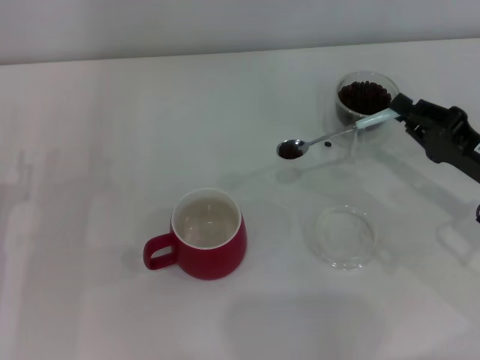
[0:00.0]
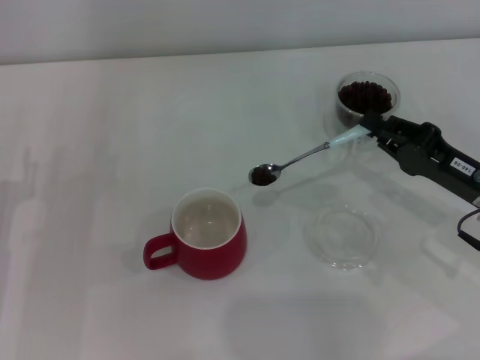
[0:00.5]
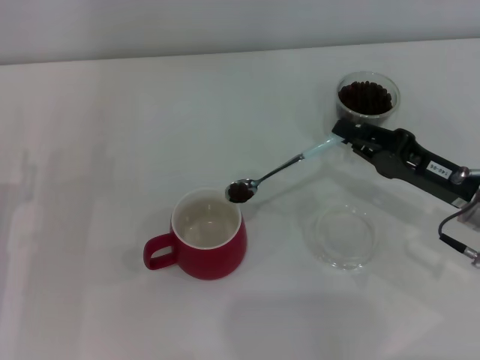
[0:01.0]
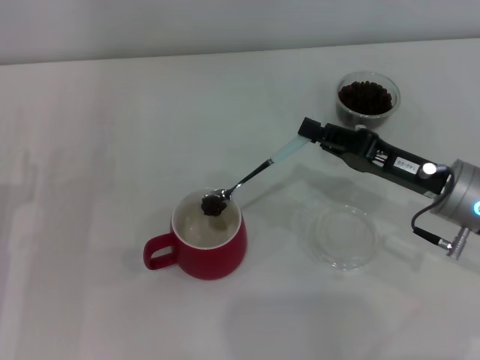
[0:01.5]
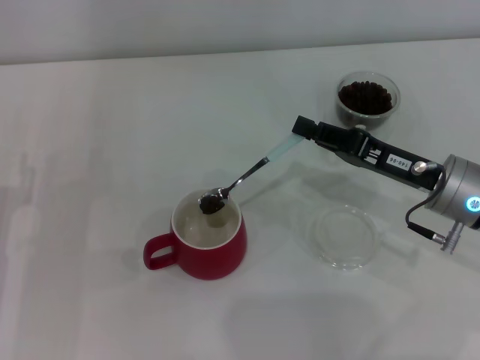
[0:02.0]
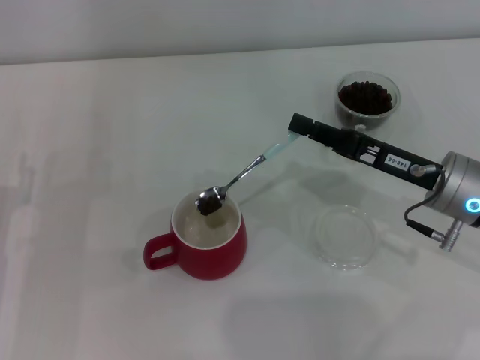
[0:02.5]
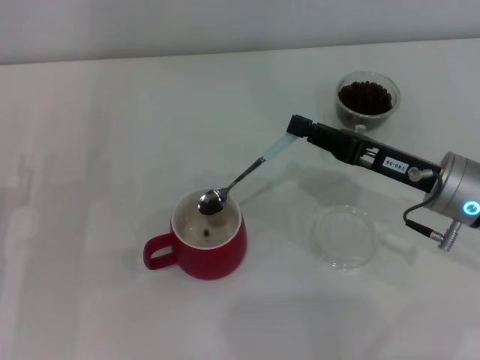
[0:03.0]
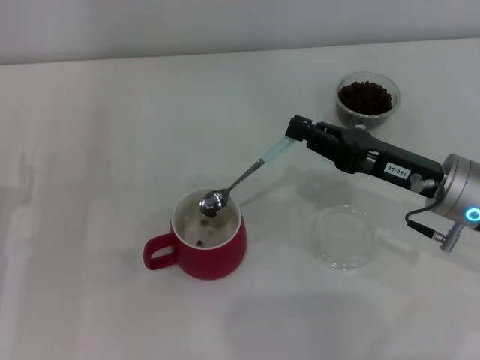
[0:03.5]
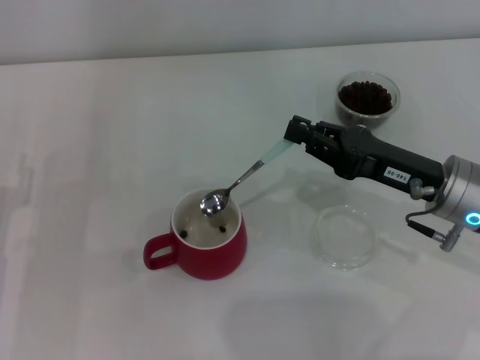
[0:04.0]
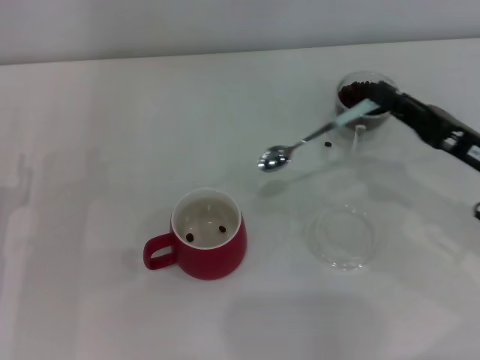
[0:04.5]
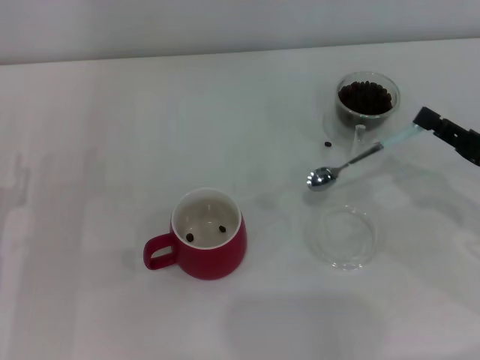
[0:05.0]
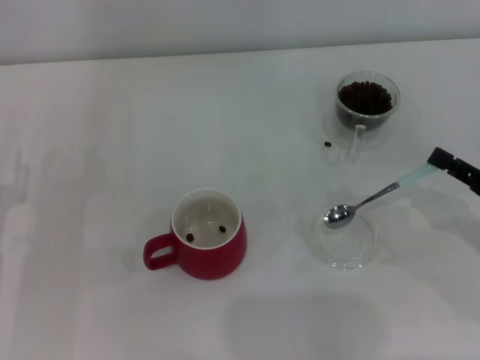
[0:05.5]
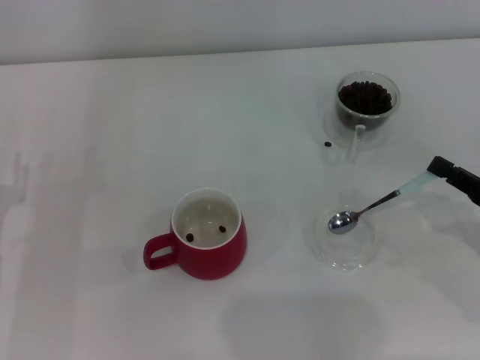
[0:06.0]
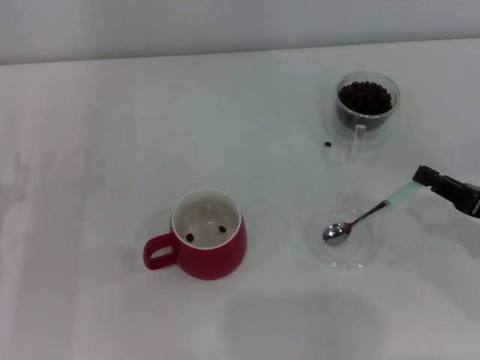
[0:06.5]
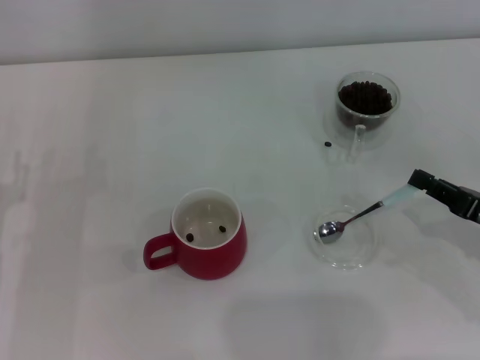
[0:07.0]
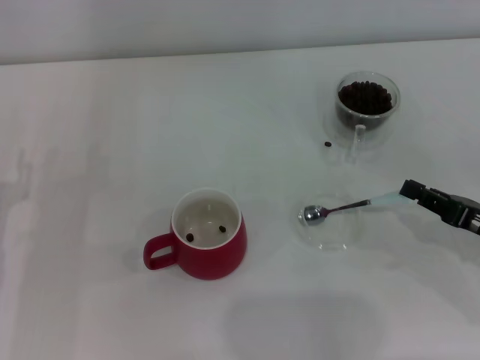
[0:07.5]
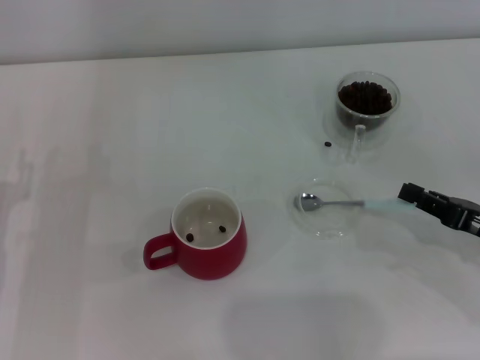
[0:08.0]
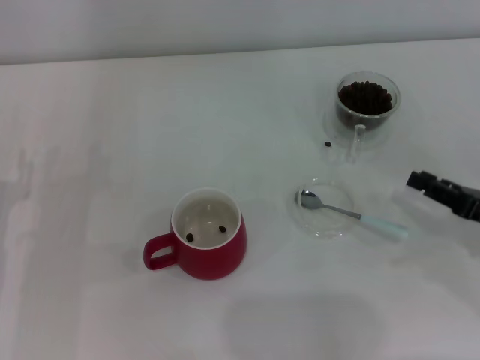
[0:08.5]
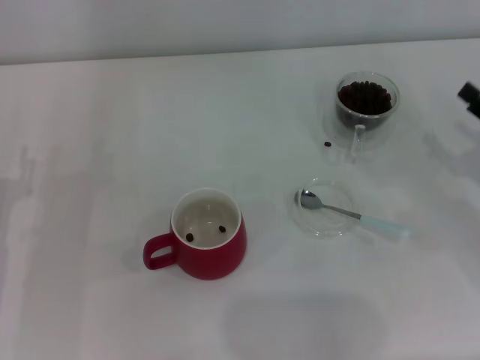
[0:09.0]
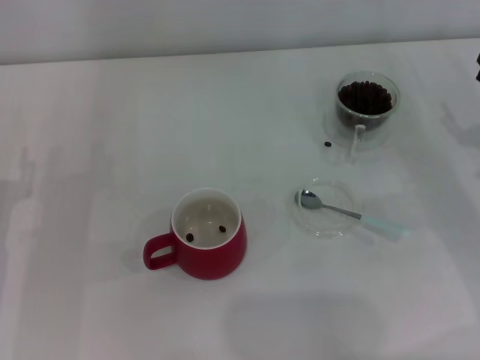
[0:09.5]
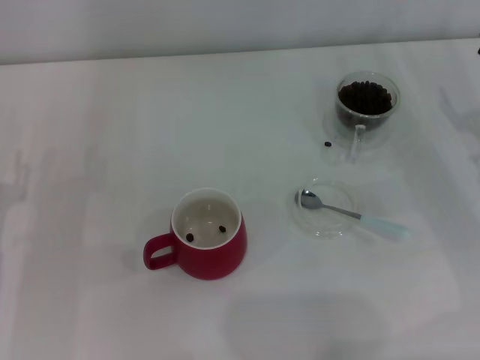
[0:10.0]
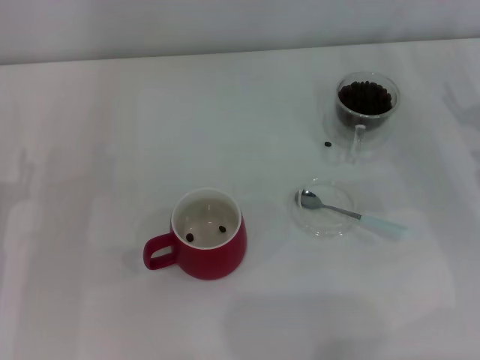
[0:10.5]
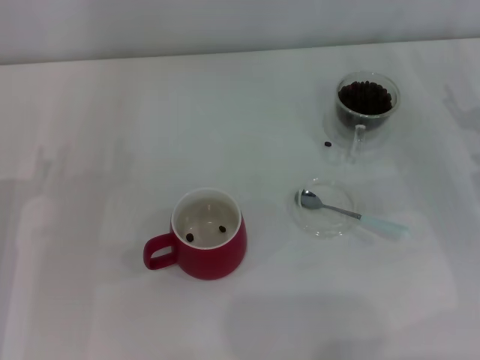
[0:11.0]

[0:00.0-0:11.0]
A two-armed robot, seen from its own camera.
Task of the whole recording: Use a blue spoon to take out the coffee beans from the glass and pour them into the red cup.
Step, 0:00.0 to 0:03.5: Scoop a spoonful of beans into the cup with the right gripper.
Step, 0:04.5 to 0:08.0: Place the spoon back in its original place with the right gripper.
0:00.0 to 0:02.0: The right gripper travels to the left by some 5 cm.
0:02.0 to 0:03.5: There are only small adjustments of the grippers.
0:03.5 to 0:05.5: The right gripper goes approximately 15 cm to the right and backward.
0:05.5 to 0:07.5: The grippers stay close to where they were, moving slightly.
0:07.5 to 0:09.0: The right gripper moves about 5 cm, and opens up.

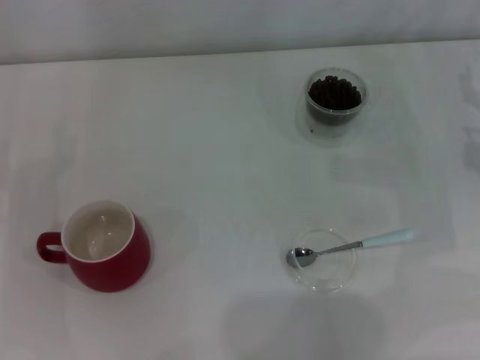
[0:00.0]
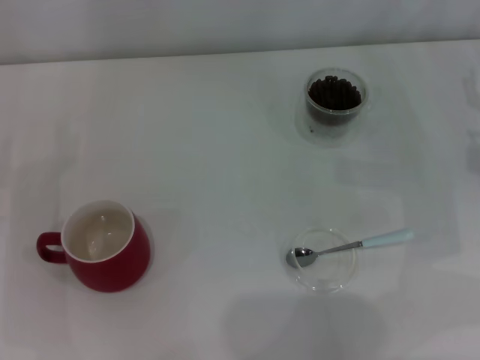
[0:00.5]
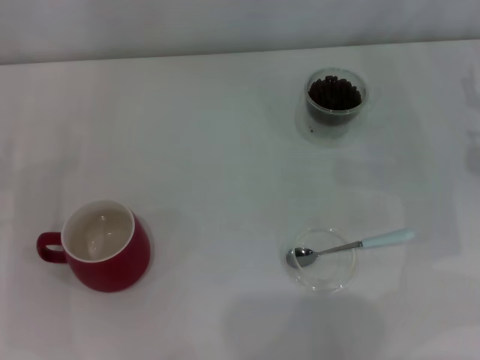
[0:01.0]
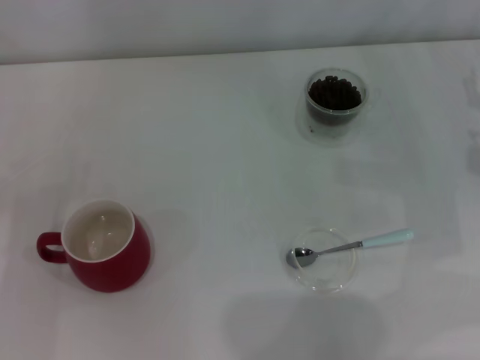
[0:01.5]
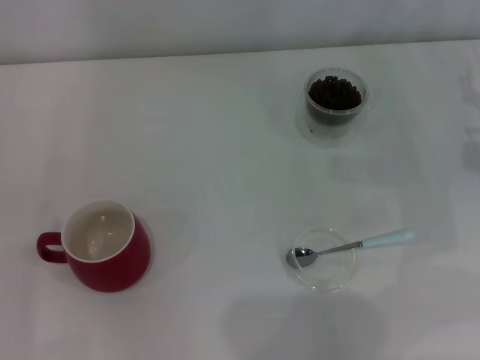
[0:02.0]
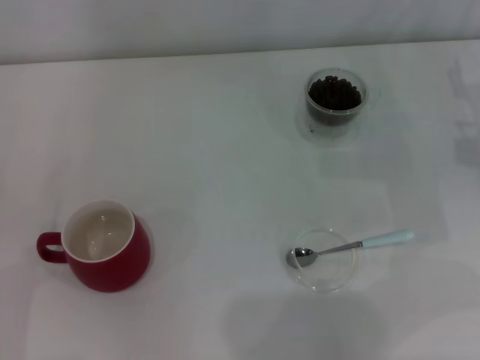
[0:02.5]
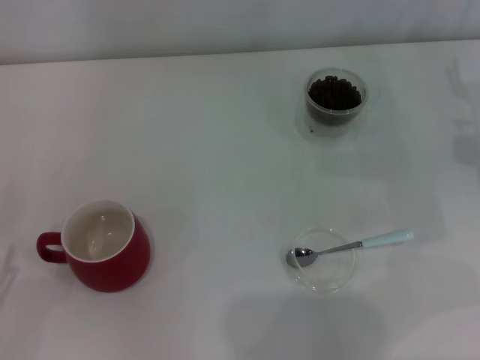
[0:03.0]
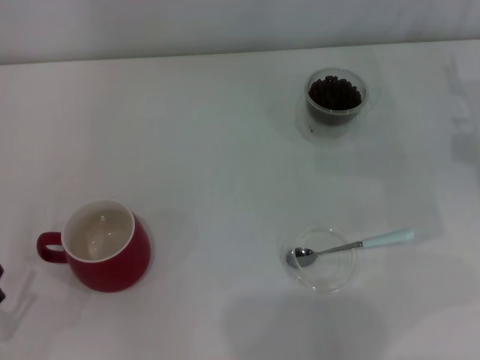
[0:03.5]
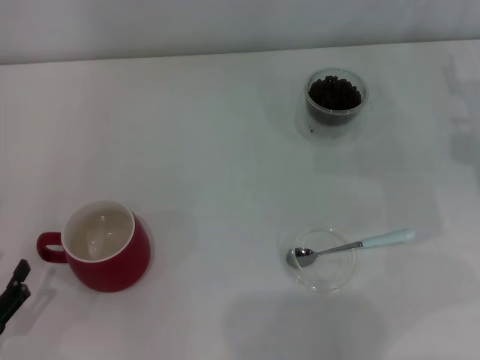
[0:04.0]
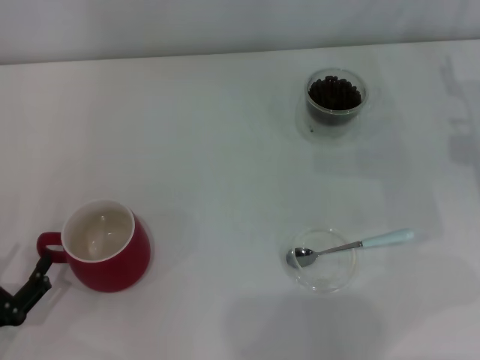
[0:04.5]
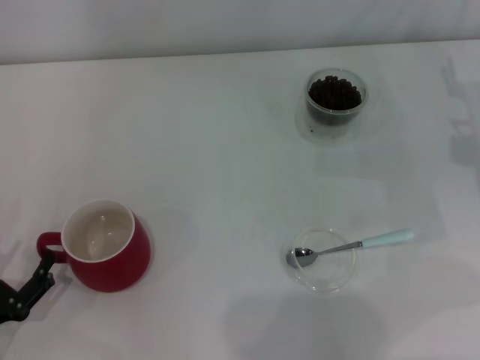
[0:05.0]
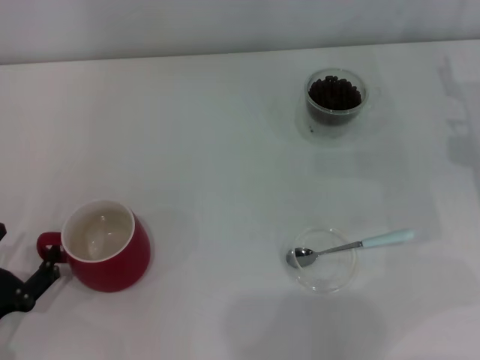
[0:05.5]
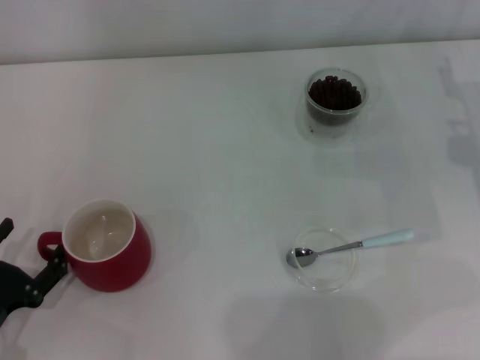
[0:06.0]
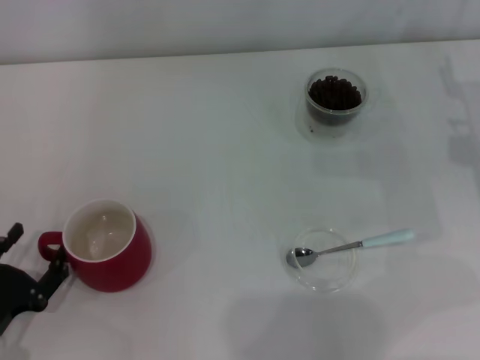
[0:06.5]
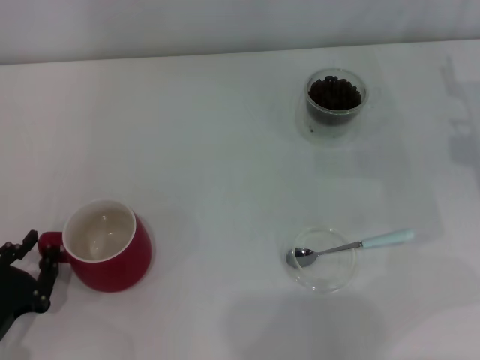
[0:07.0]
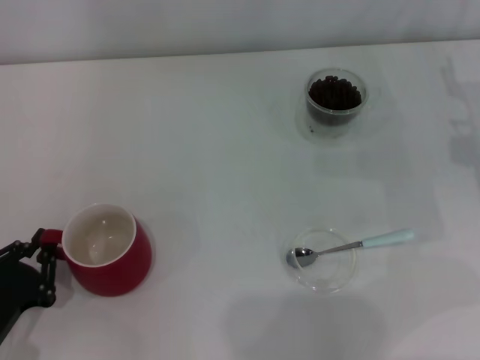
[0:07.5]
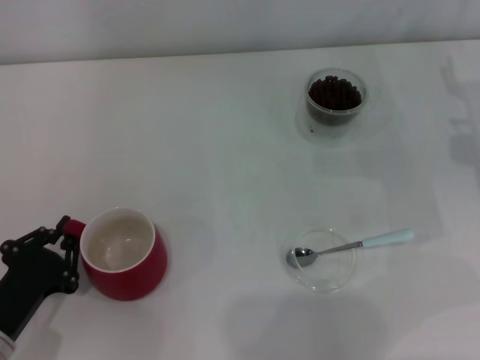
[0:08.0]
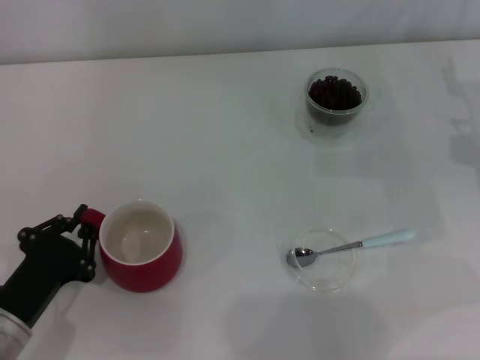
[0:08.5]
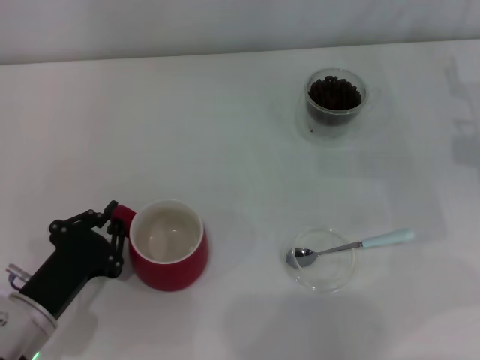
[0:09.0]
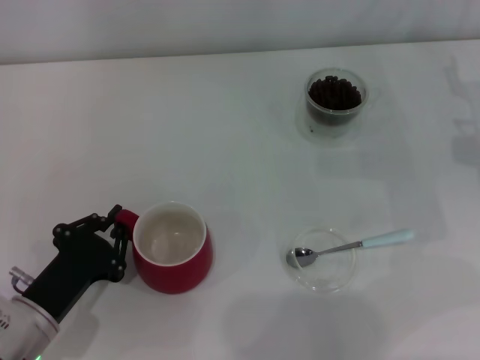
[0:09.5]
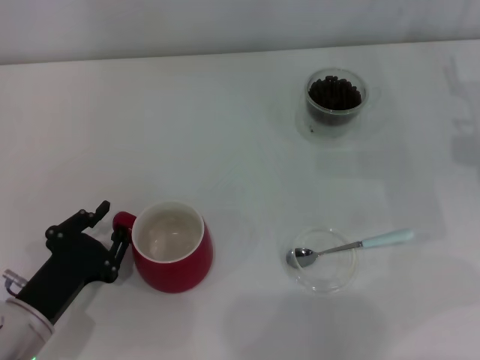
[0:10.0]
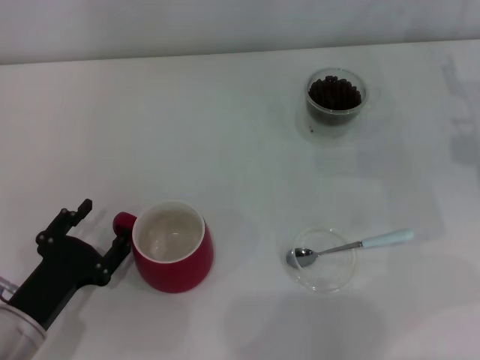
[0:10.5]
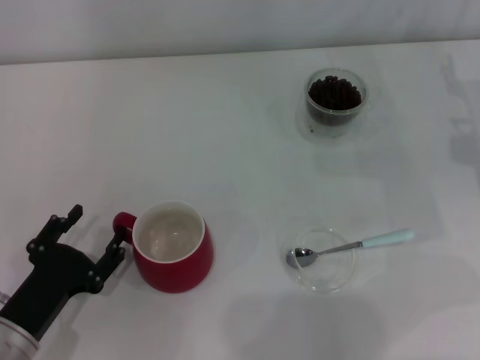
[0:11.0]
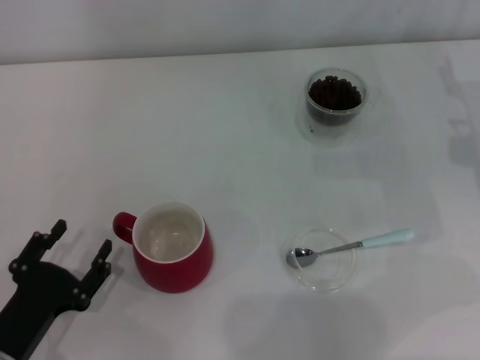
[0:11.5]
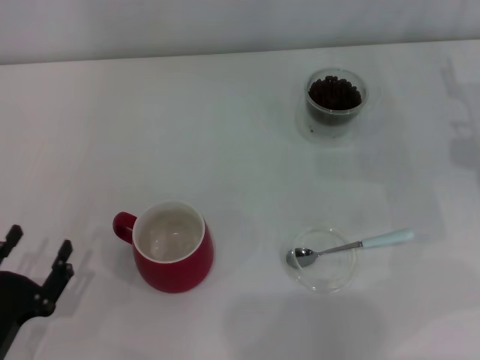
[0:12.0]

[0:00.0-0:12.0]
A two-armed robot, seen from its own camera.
Task of the whole recording: Use a blue spoon to take out the coffee beans from the glass and pour them into the red cup.
Step, 0:00.0 to 0:11.5: Move the cup to the center of view with the left gripper.
0:02.0 to 0:04.0: The left gripper shifts by some 5 cm.
0:04.0 to 0:06.0: There are only small adjustments of the grippers.
0:06.0 to 0:08.0: The left gripper closes up.
0:08.0 to 0:10.0: The grippers stay close to where they were, moving slightly.
0:10.0 to 0:12.0: The left gripper goes roughly 5 cm backward, and opens up.

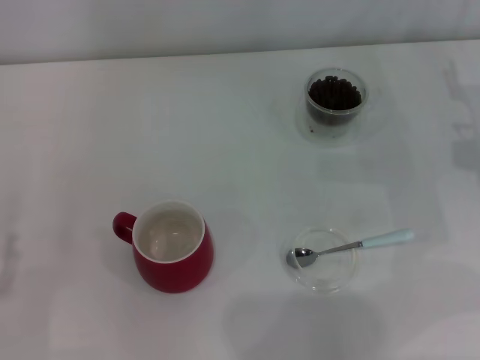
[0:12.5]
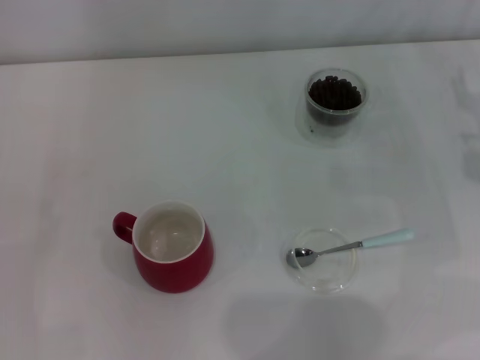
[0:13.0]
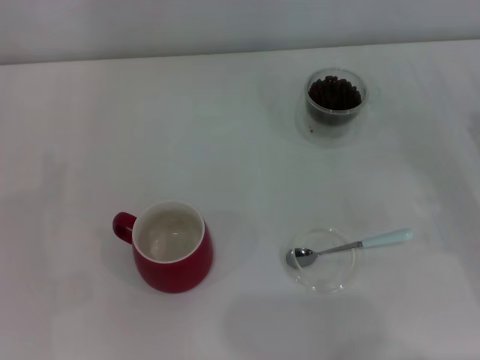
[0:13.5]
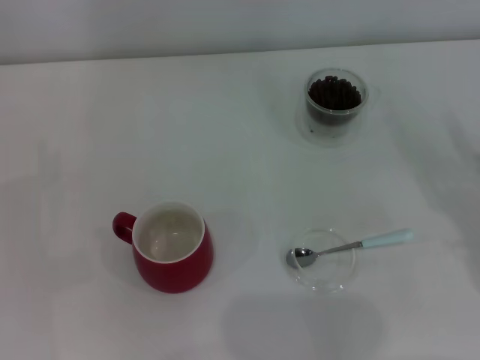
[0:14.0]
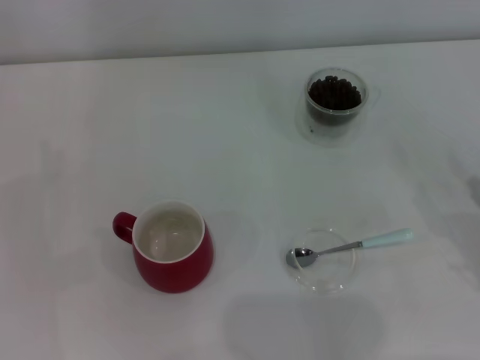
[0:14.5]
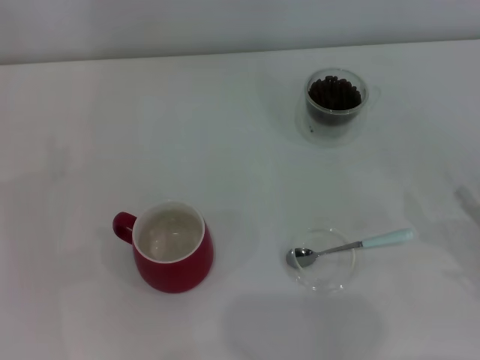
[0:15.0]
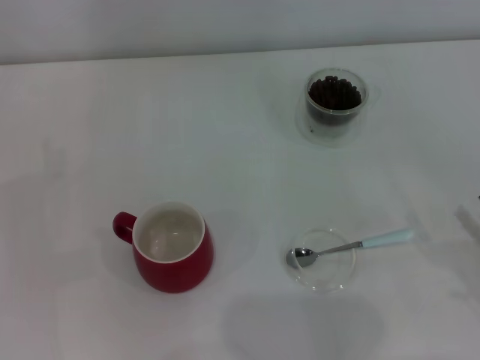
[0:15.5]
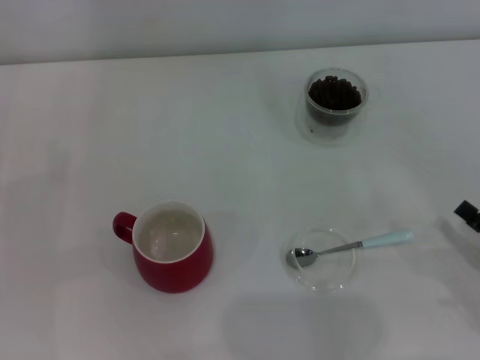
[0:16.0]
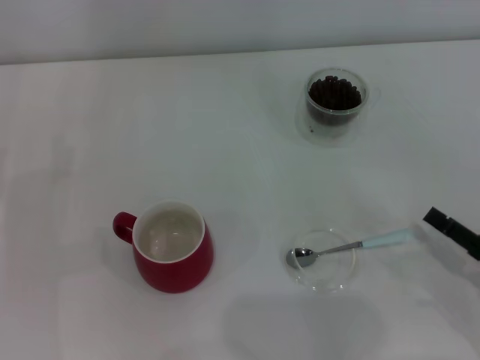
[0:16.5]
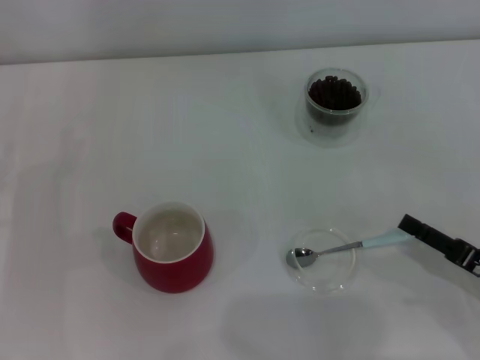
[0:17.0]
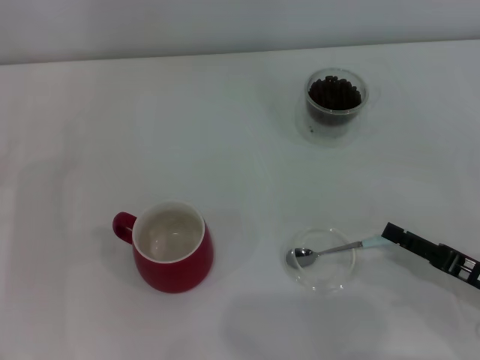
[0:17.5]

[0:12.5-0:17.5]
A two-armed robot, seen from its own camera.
Task of the whole recording: Use a blue spoon to take out the coffee beans from the glass and pour them into the red cup.
0:12.5 to 0:15.0: The right gripper goes roughly 20 cm backward.
0:15.0 to 0:17.5: The right gripper is displaced to the left by about 5 cm.
